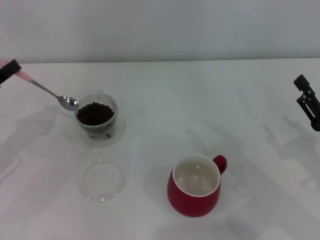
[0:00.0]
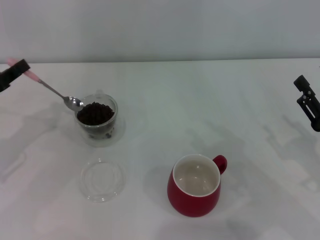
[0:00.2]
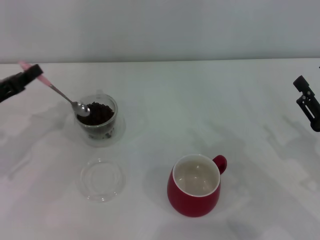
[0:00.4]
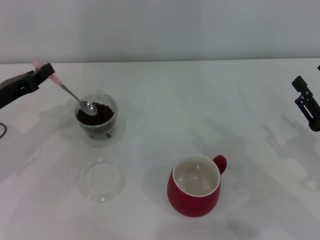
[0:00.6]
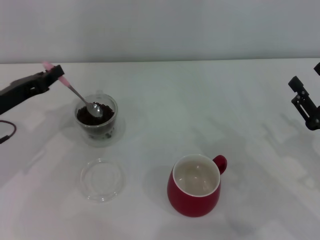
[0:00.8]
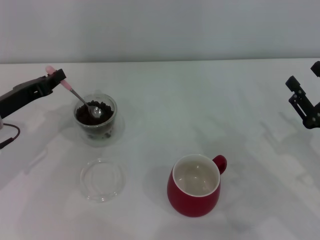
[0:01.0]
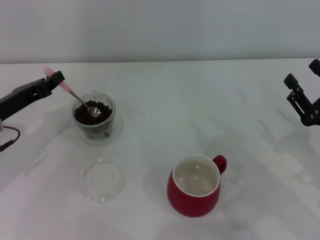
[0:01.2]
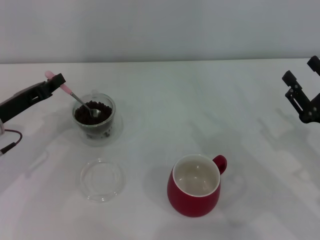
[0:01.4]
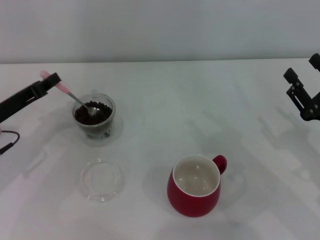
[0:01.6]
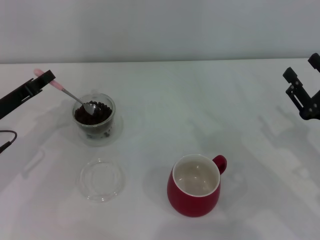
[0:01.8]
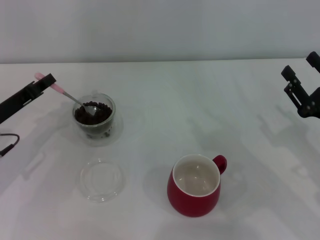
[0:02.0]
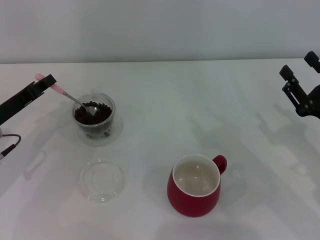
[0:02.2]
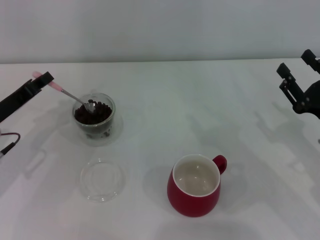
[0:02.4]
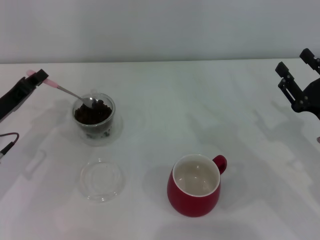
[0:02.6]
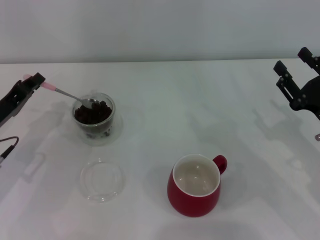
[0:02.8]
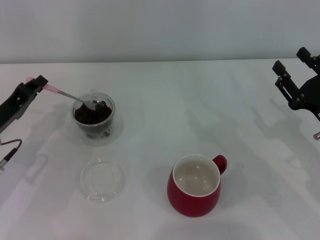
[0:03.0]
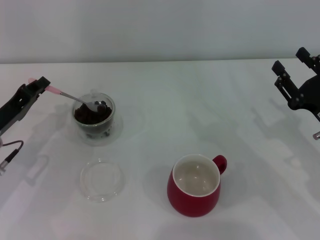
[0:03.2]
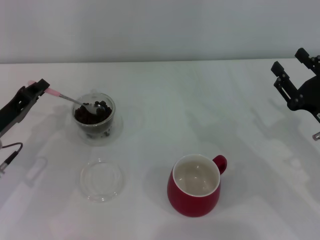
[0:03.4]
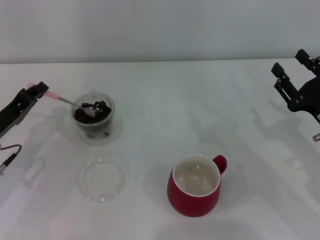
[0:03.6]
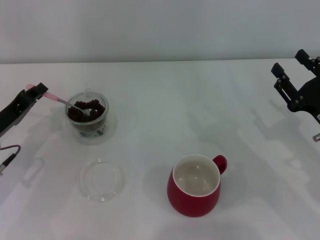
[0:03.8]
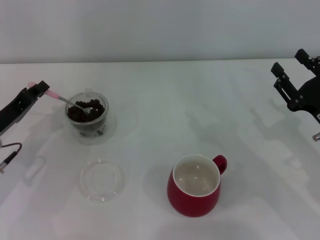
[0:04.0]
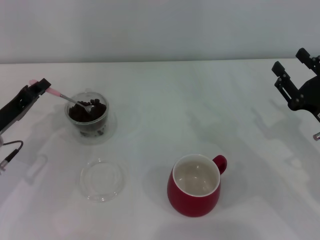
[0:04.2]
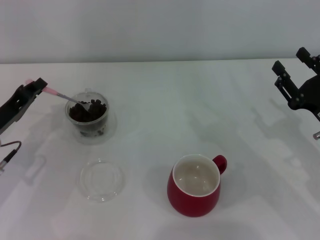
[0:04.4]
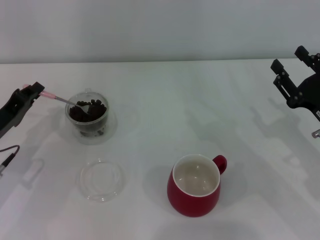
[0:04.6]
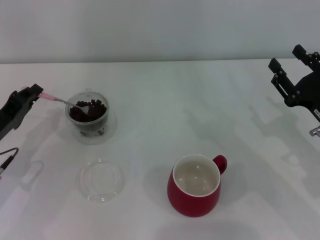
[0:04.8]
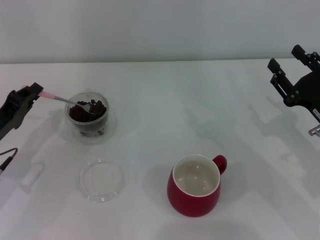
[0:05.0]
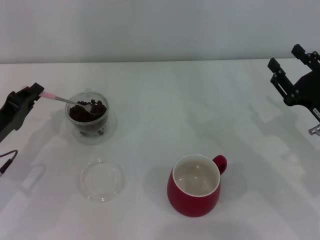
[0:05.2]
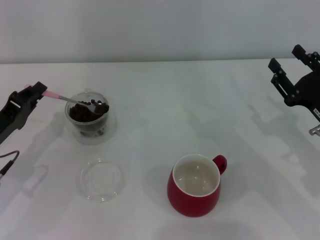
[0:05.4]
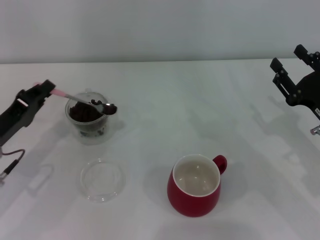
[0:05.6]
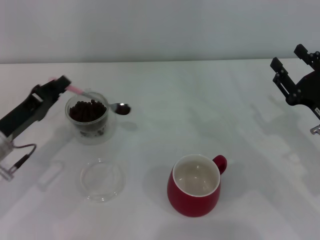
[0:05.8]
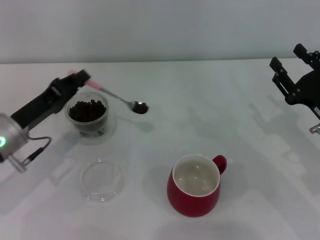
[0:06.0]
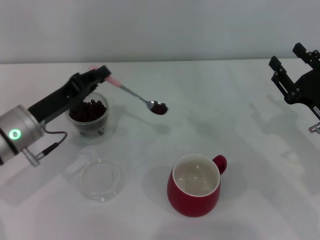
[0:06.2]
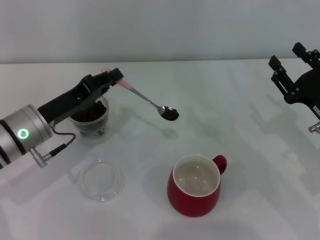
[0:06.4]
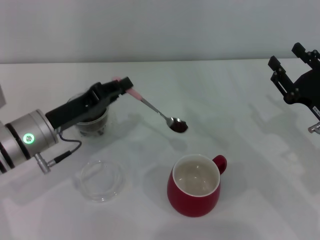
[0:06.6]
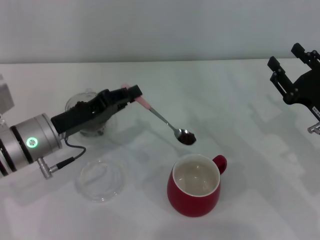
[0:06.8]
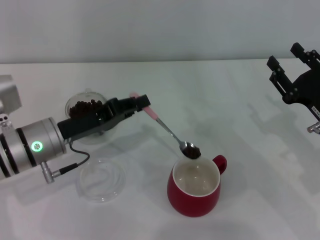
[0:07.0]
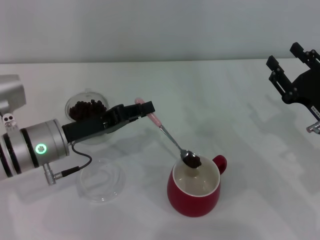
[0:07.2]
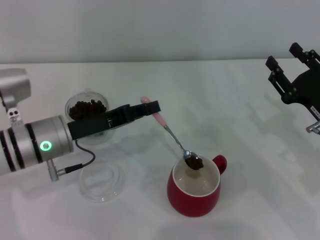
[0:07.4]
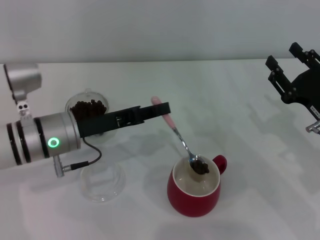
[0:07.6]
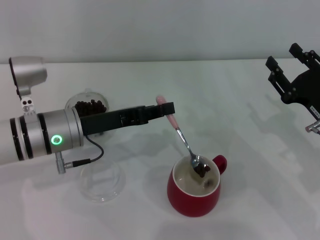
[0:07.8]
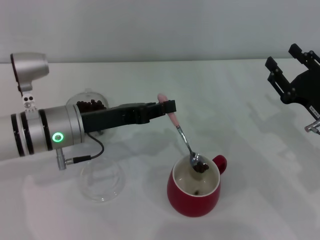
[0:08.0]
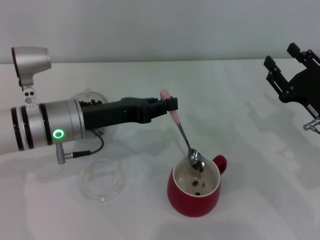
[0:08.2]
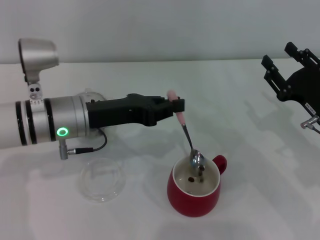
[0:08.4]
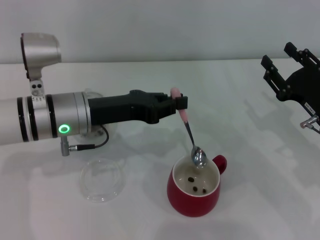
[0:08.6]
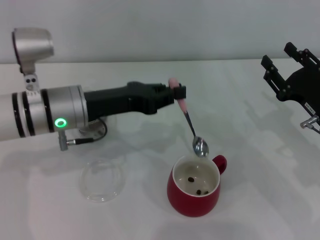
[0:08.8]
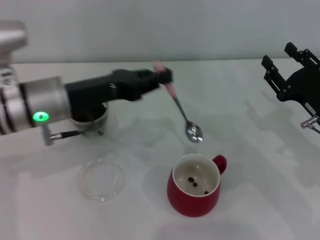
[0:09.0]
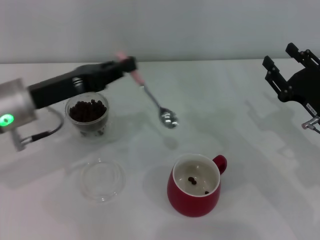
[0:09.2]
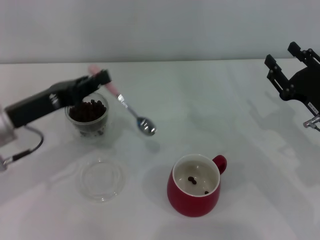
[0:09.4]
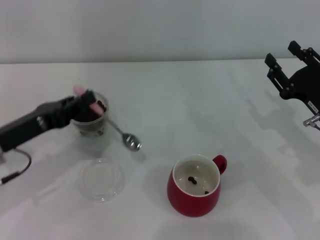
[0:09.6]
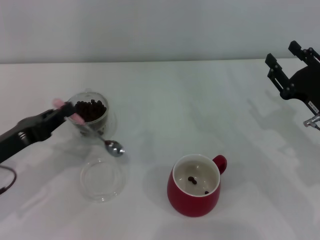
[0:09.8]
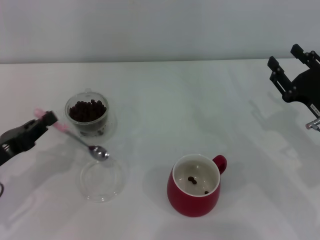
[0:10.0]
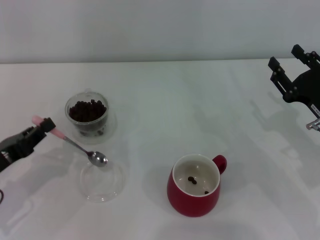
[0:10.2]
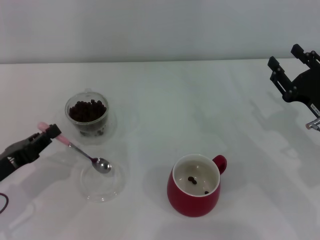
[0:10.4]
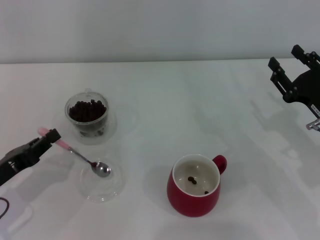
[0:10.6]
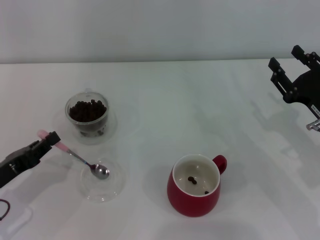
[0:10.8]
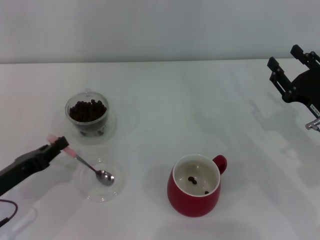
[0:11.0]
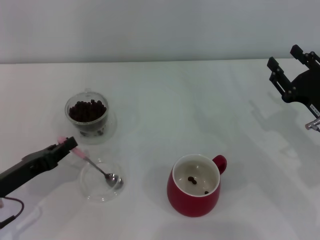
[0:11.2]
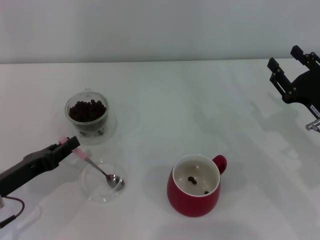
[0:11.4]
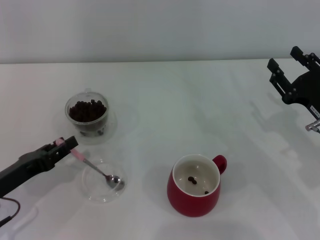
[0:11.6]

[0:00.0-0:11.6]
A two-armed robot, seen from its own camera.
Task of the whole recording: Use a pink spoon to take out the coffee beans from the glass and pour them into the red cup.
Step, 0:00.0 to 0:08.6: Scoop a spoonful of beans into the cup with the right gripper.
0:00.0 to 0:01.4: The left gripper travels to the right by approximately 5 cm.
0:02.8 to 0:04.4: The two grippers keep their place.
0:04.4 to 0:05.8: The grippers make only small movements.
0:05.8 to 0:07.2: The left gripper goes some 10 cm to the right.
0:07.2 to 0:08.8: The left gripper heads upward, covering some 5 cm.
0:08.8 to 0:10.2: The left gripper travels to the left, backward and downward by approximately 20 cm.
0:10.2 to 0:11.6: The grippers make only small movements.

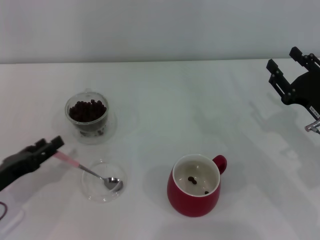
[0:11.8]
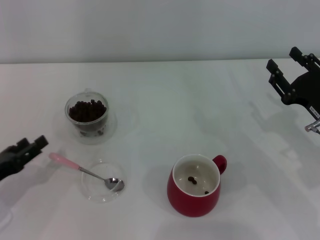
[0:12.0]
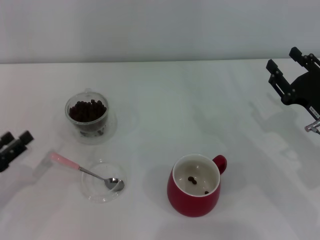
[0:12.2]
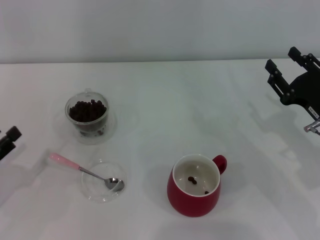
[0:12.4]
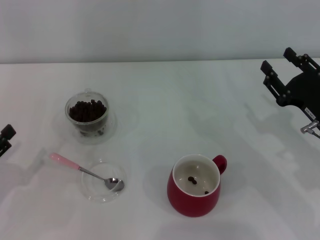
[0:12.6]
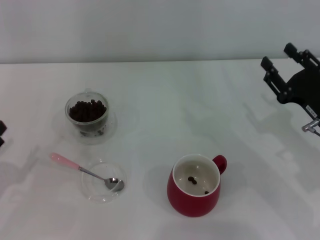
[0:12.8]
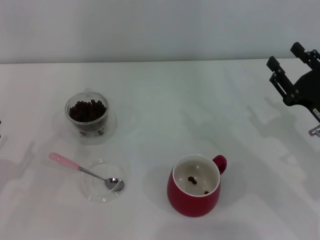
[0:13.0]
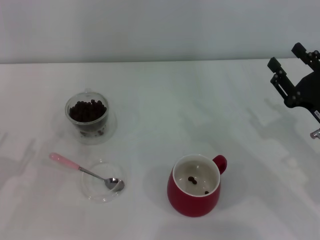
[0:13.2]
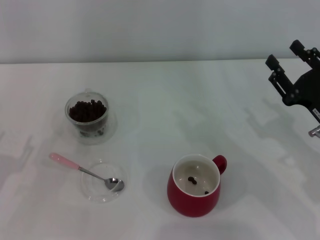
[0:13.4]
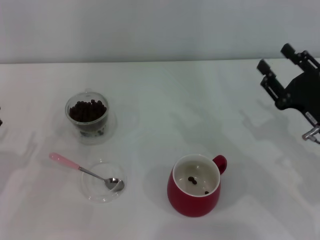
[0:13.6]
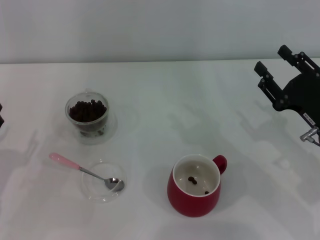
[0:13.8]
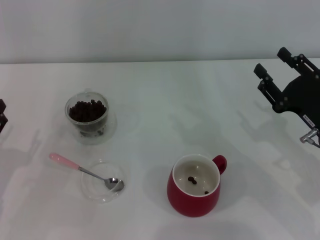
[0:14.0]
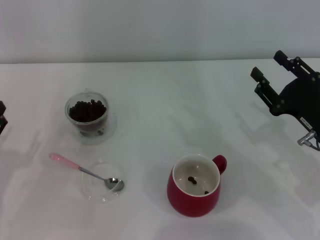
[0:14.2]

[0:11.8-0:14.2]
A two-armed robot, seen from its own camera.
Task of the whole recording: Use a pink spoon to take out the coffee beans from the glass and pour them into the red cup.
0:11.8 to 0:13.0: The left gripper opens up.
0:13.0 to 0:14.2: The grippers move only a little.
